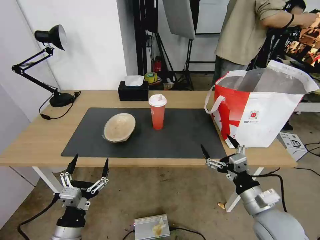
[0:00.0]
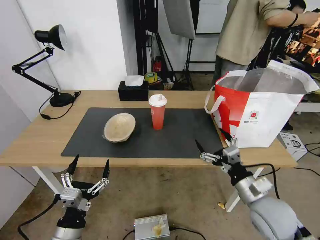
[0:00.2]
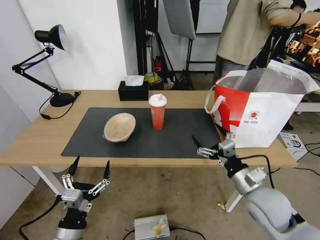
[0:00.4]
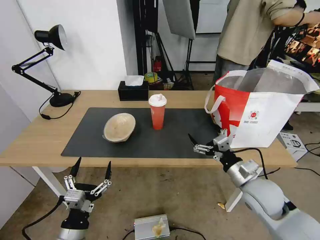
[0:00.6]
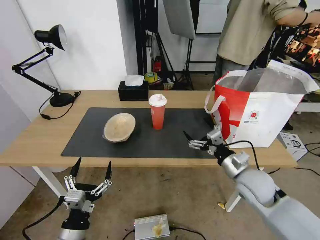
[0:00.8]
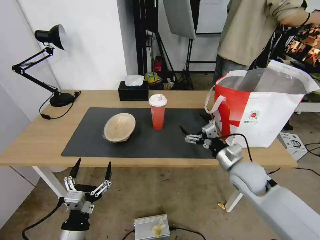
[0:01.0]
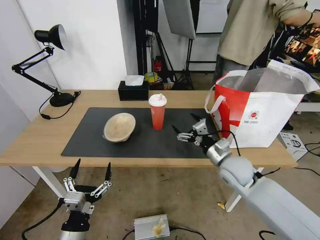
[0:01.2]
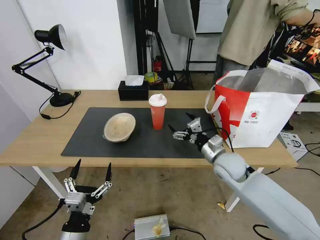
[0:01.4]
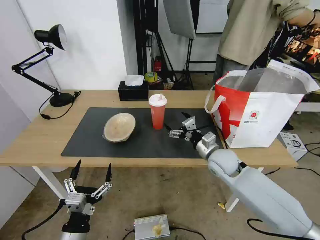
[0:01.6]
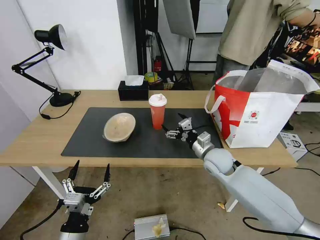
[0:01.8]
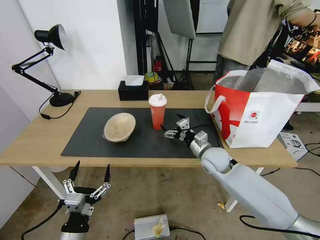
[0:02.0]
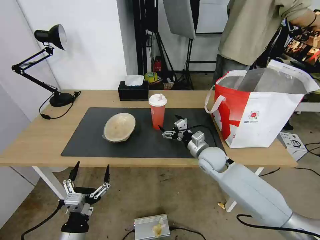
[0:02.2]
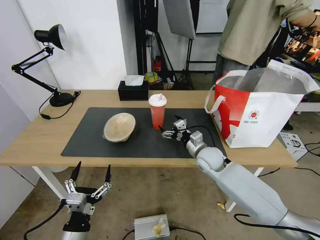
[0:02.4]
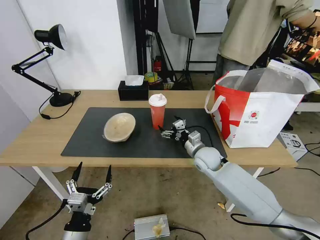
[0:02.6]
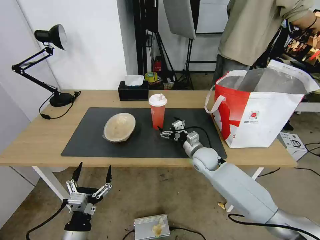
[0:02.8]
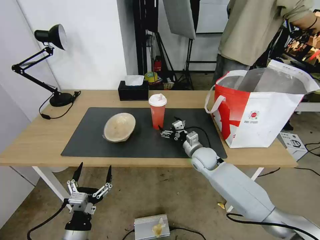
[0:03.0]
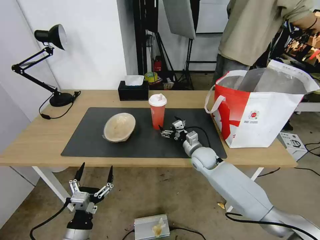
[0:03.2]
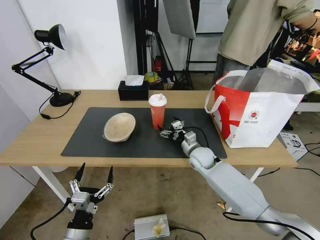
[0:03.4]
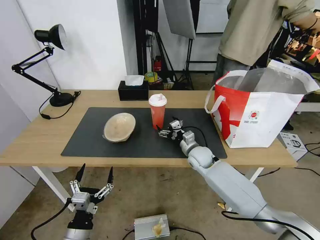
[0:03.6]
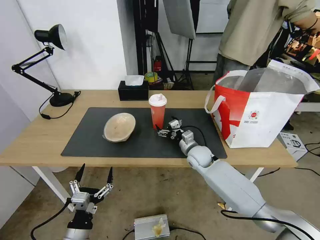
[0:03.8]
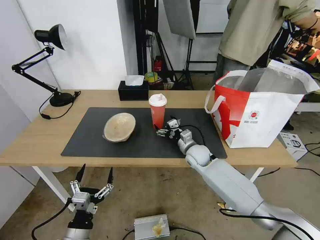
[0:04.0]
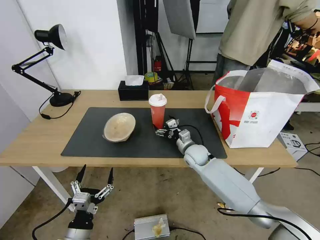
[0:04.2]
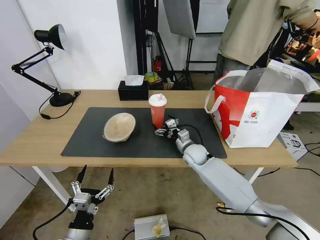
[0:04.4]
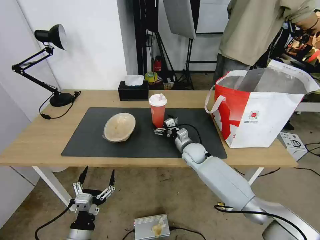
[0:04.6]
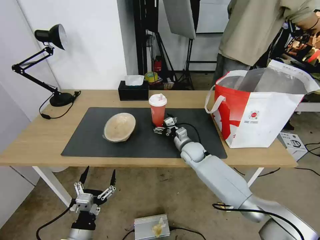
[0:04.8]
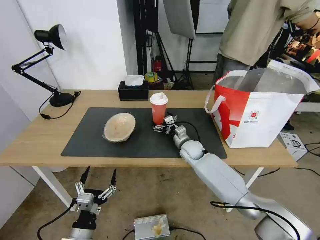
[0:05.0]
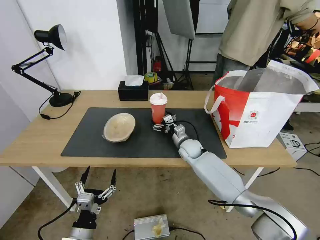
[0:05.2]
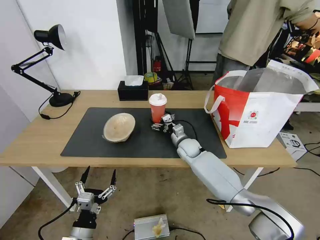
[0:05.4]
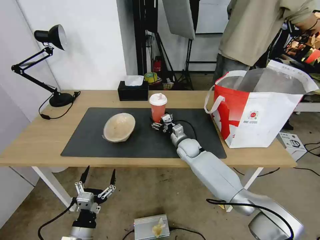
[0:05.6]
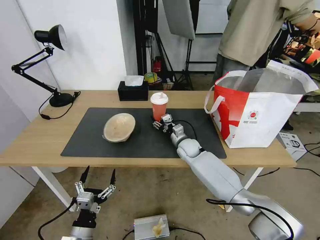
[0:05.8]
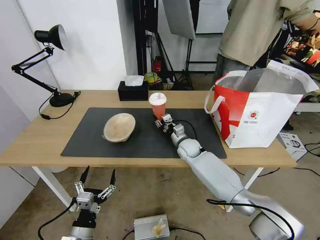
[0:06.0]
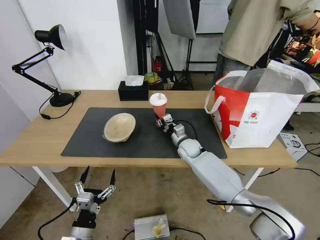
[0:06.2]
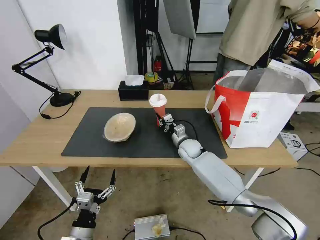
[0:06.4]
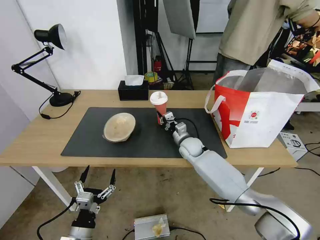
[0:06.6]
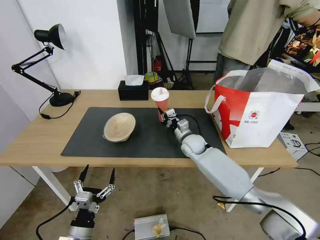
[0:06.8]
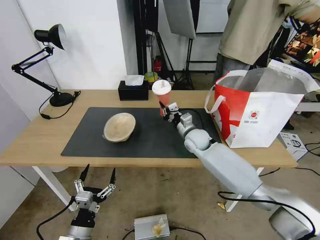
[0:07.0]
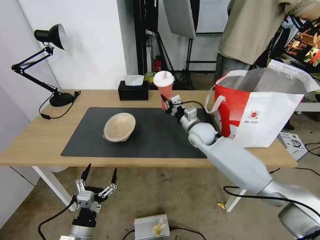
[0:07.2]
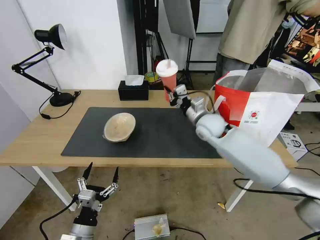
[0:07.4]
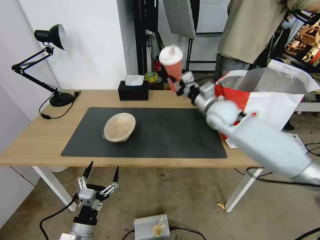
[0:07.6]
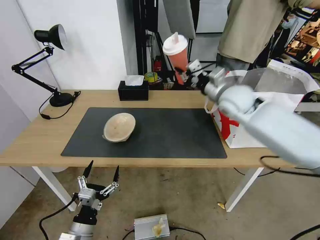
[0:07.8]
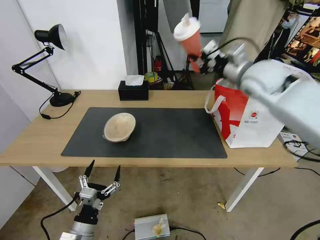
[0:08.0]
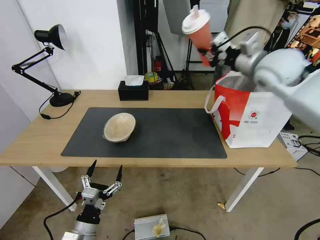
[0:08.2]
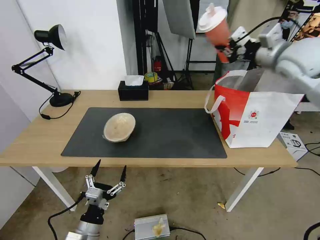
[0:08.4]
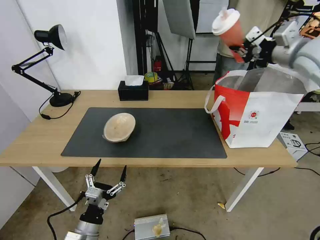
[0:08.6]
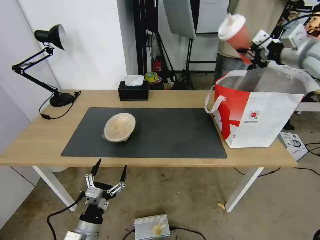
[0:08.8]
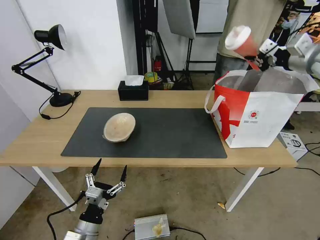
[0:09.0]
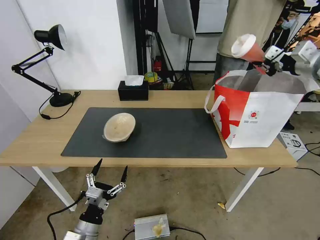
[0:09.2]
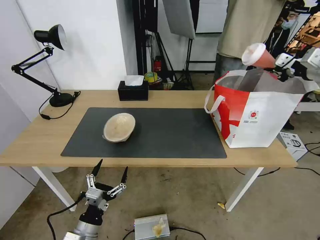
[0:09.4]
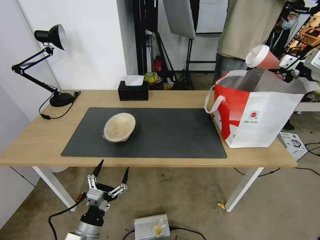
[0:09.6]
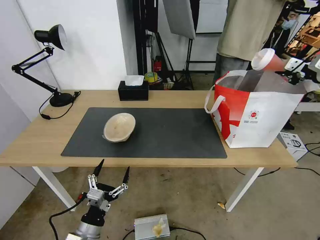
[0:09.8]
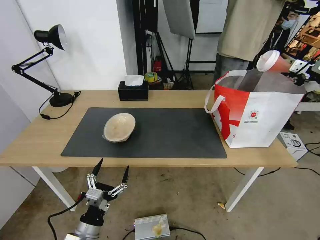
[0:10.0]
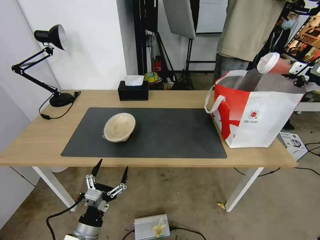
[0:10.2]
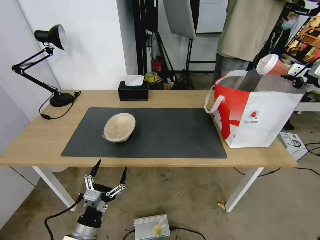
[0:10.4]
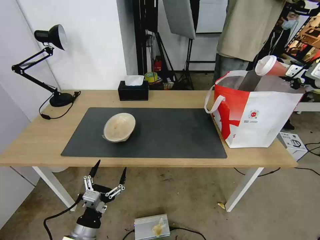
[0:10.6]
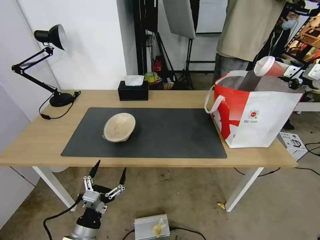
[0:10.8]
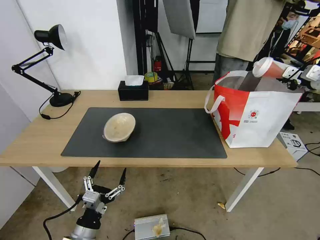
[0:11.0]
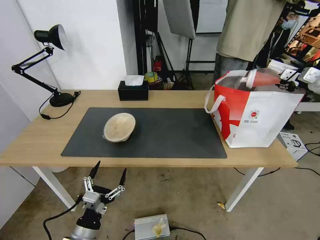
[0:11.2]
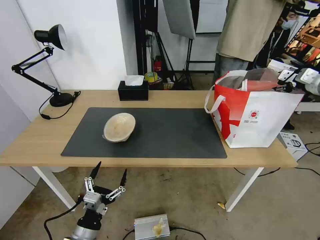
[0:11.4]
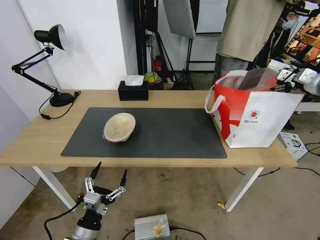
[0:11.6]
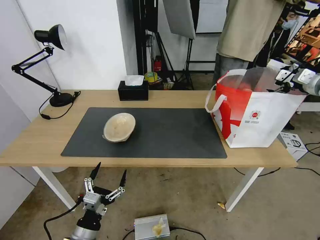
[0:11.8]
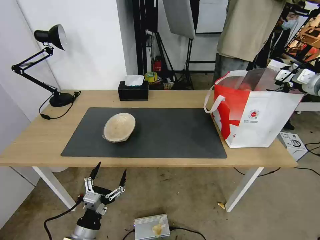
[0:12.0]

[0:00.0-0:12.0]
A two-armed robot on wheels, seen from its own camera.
Task of the whole recording: Pick up the trash from the table and place it into the takeout bag.
0:00.0 to 0:01.6: The right gripper shifts approximately 20 cm forward.
0:01.6 to 0:03.0: The right gripper travels downward and forward by about 10 cm.
0:03.0 to 0:04.4: There are only small adjustments of the grippers.
0:04.4 to 0:06.0: The right gripper closes up.
0:06.0 to 0:07.6: The right gripper is displaced upward by some 20 cm, and closes its fingers.
0:07.6 to 0:09.0: The right gripper shifts some 30 cm to the right and upward.
0:09.0 to 0:10.4: The right gripper heads to the right, covering about 10 cm.
0:10.4 to 0:12.0: The right gripper opens up.

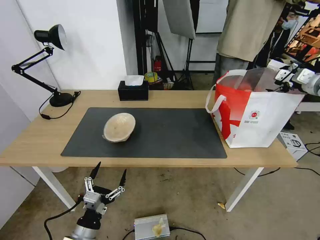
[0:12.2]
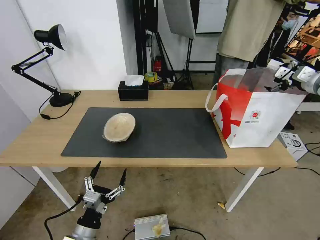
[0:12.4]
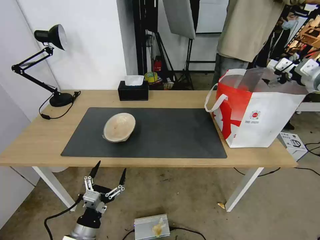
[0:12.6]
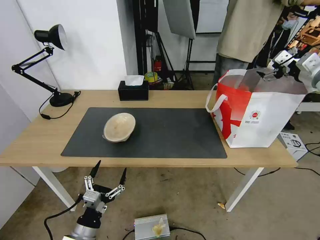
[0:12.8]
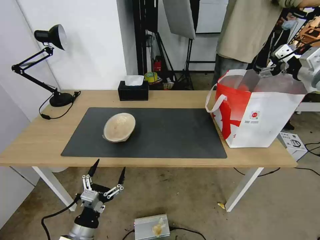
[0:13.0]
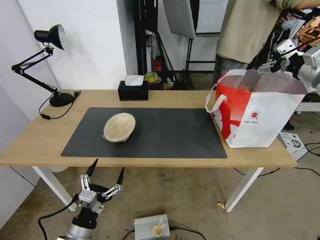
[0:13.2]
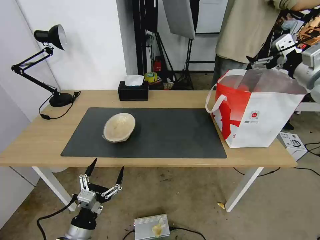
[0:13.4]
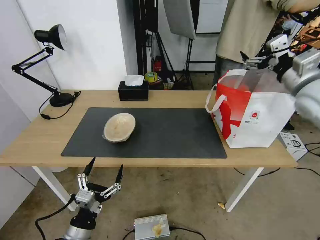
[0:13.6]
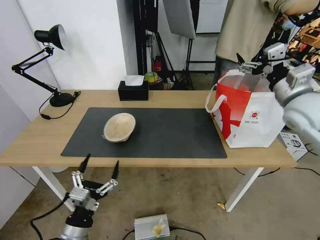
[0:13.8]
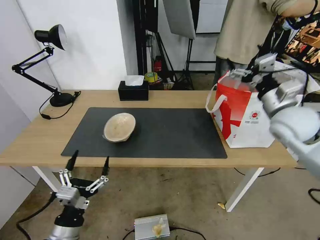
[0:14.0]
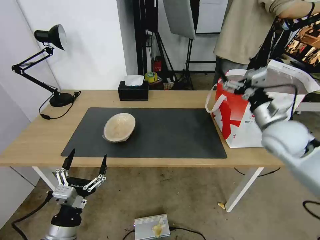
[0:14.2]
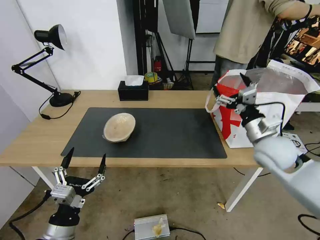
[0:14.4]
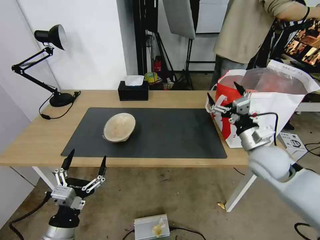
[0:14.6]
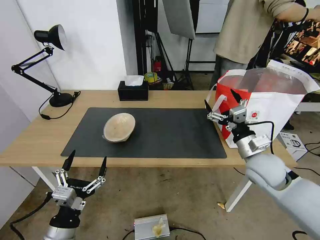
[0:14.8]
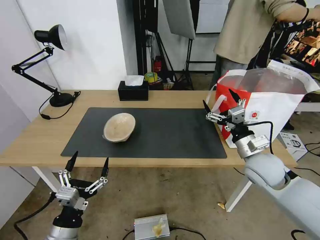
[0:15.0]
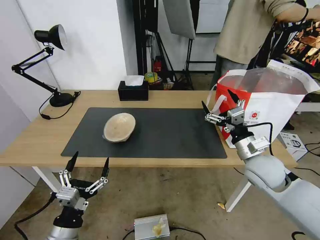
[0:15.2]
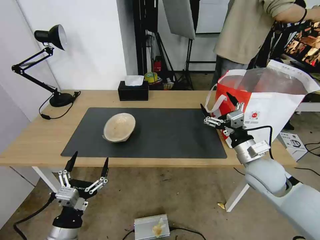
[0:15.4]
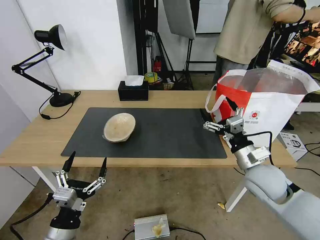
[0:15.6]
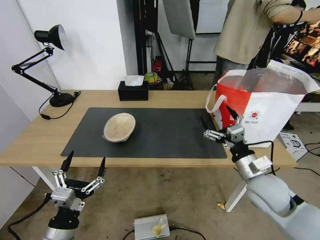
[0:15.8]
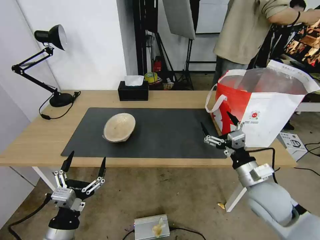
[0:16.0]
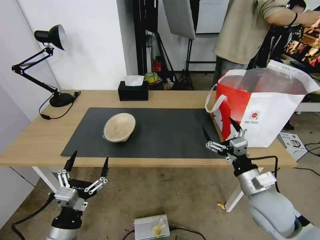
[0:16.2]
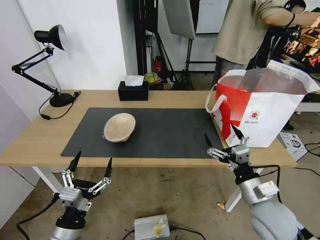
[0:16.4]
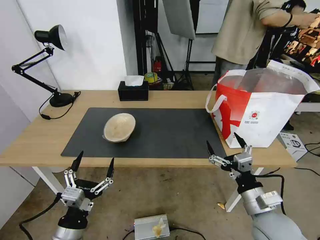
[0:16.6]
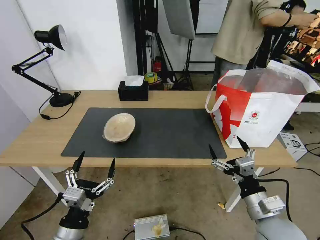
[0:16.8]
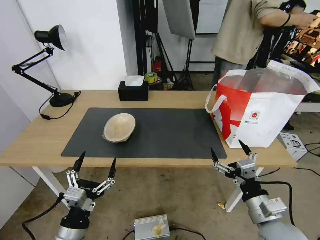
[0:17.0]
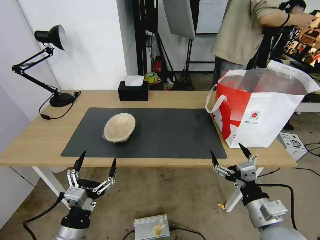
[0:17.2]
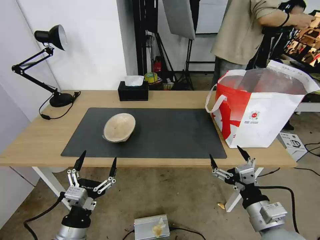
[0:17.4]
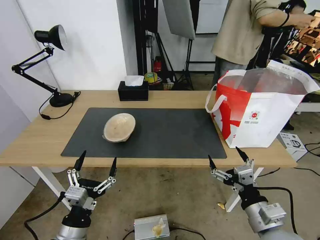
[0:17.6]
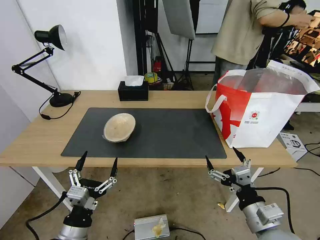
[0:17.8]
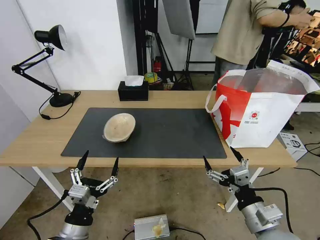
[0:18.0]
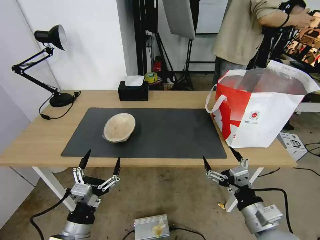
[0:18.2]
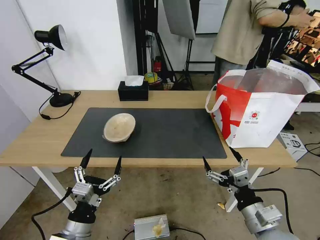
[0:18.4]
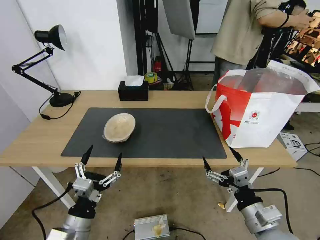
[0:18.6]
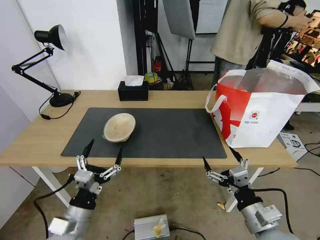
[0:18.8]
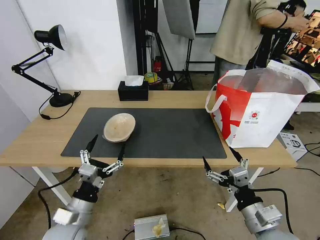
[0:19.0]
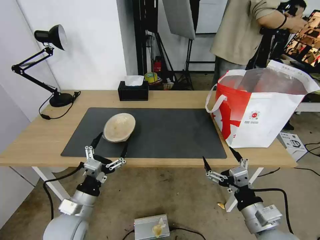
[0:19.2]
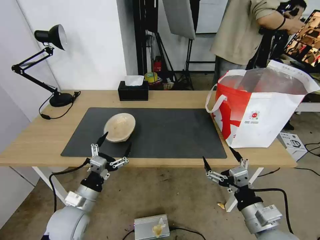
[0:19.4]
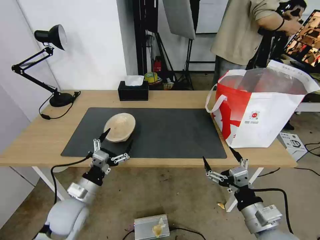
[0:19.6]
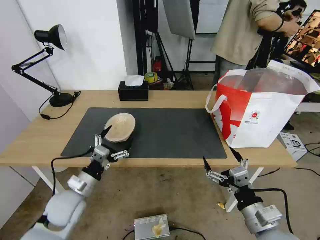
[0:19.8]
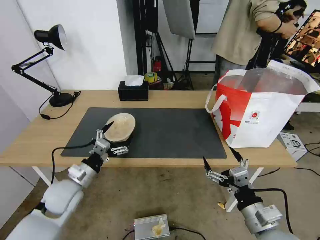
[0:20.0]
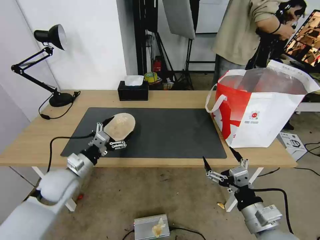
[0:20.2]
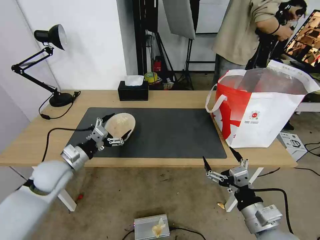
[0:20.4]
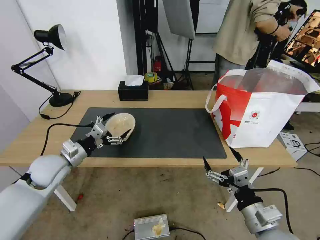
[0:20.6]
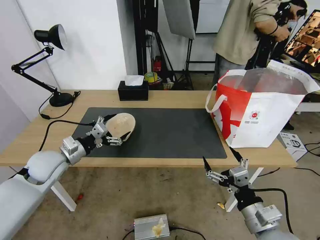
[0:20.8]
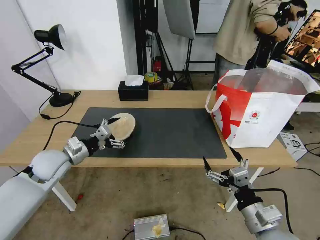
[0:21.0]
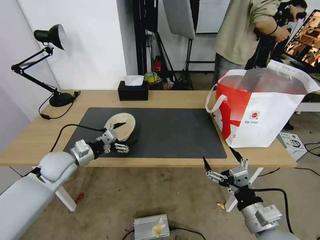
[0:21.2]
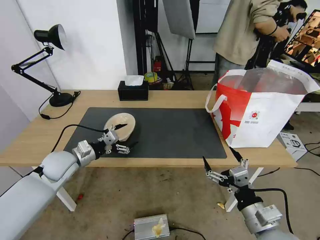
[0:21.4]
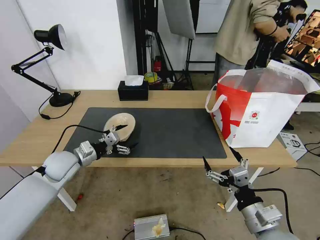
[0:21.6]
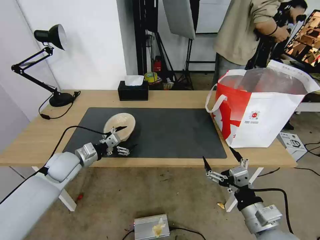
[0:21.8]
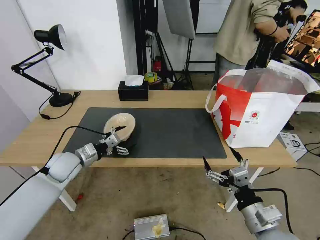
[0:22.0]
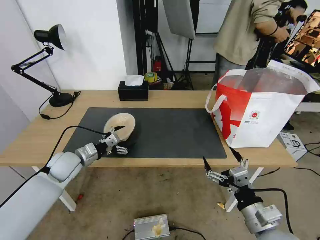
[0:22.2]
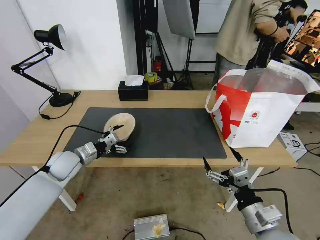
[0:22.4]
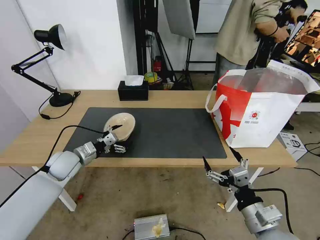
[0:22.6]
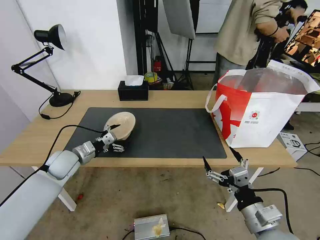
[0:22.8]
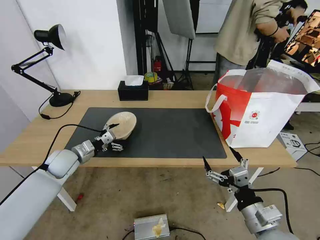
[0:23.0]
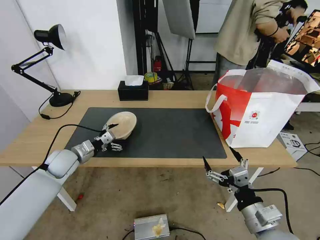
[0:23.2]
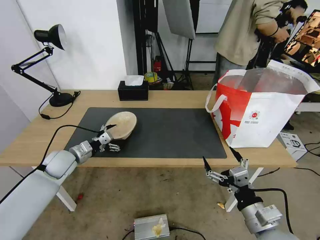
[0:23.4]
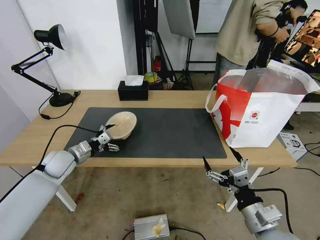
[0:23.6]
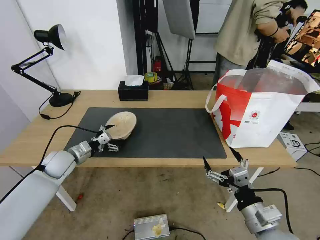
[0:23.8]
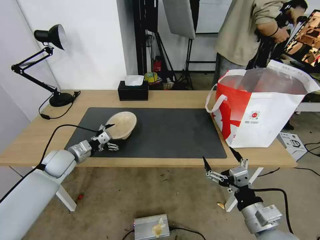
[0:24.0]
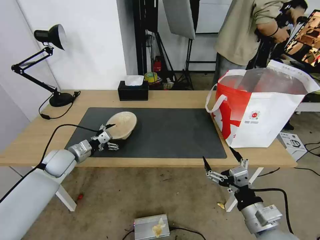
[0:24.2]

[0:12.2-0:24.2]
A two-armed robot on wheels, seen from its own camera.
Task of the whole recording: Pick up the trash from the table and place it into the takeout bag.
0:12.2 to 0:13.8: The right gripper is displaced to the left and backward by approximately 20 cm.
0:13.8 to 0:15.2: The right gripper shifts some 20 cm downward, backward and to the left.
0:15.2 to 0:16.6: The right gripper shifts about 15 cm backward.
0:16.6 to 0:18.2: There are only small adjustments of the grippers.
0:18.2 to 0:19.8: The left gripper travels forward by some 15 cm.
0:19.8 to 0:21.2: The left gripper shifts roughly 10 cm forward and upward.
0:21.2 to 0:22.6: The grippers make only small movements.
0:22.6 to 0:24.2: The grippers make only small movements.
